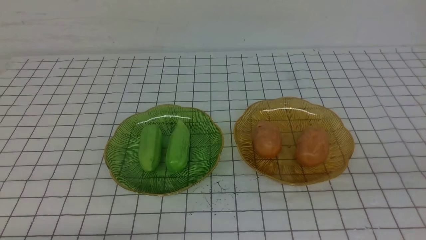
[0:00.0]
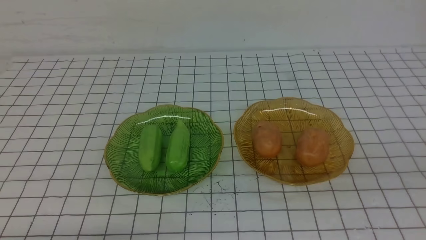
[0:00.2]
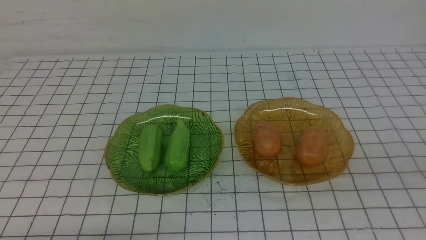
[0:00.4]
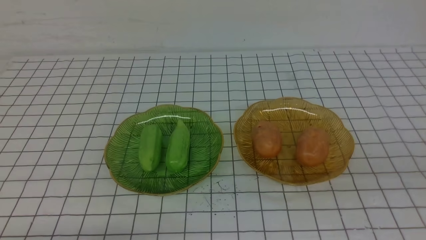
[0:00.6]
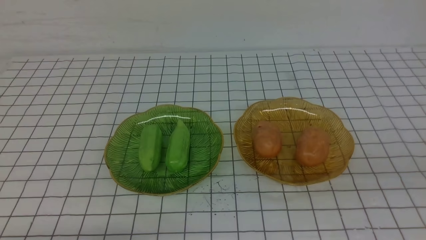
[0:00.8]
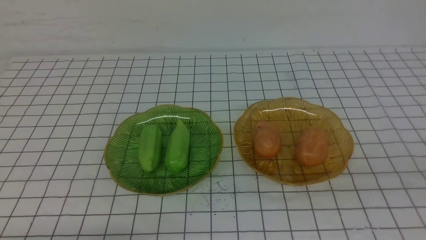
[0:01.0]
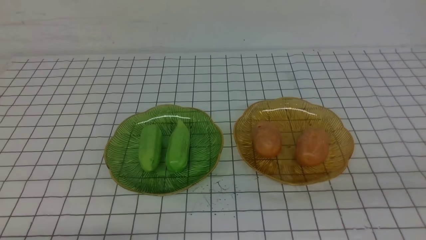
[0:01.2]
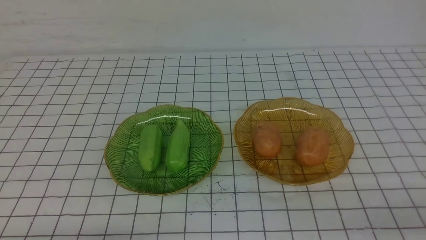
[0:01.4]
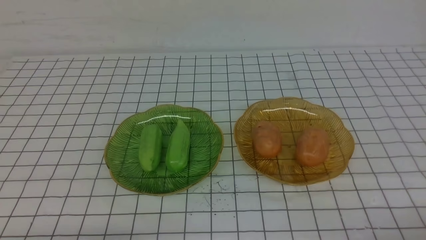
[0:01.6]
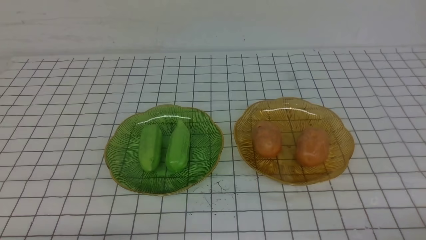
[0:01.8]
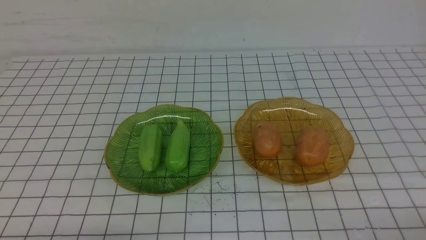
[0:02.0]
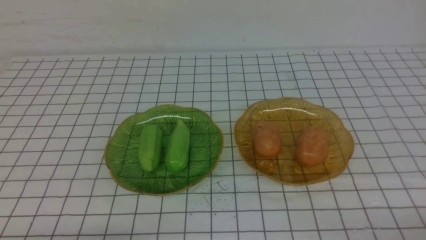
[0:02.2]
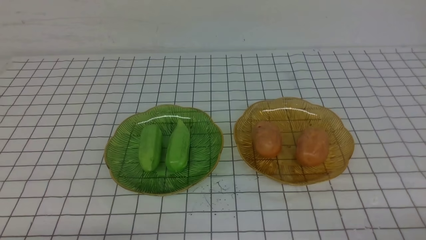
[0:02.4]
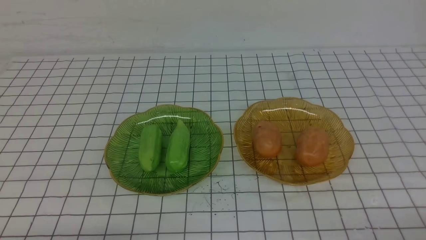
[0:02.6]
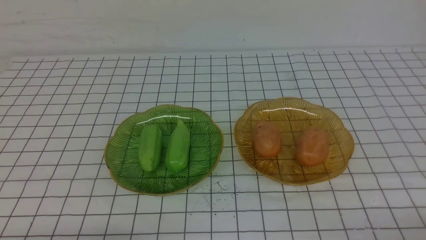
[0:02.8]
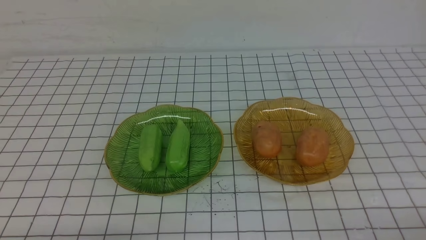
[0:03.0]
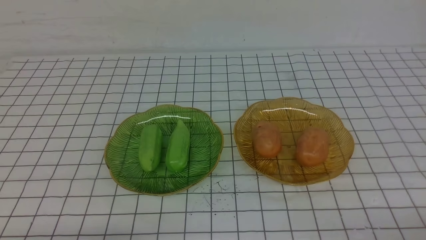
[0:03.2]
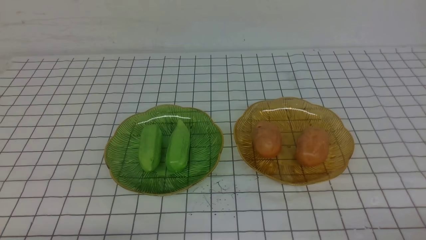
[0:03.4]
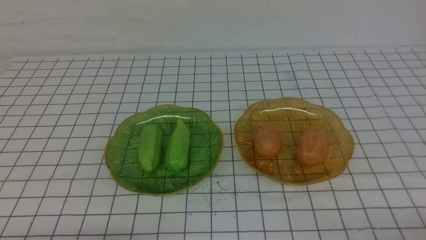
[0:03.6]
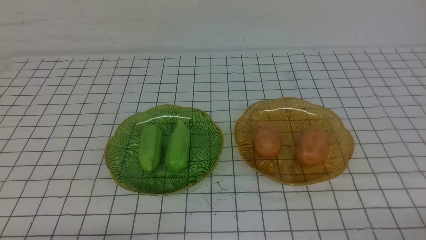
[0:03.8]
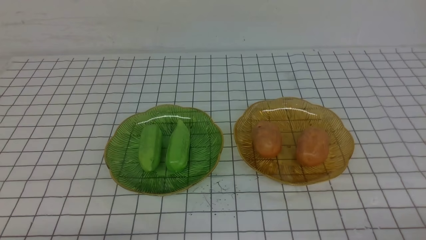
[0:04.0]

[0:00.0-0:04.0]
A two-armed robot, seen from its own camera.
0:02.6 to 0:04.0: Both grippers stay about where they are.
